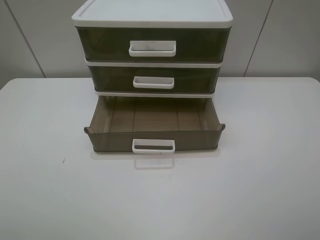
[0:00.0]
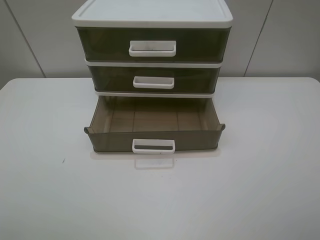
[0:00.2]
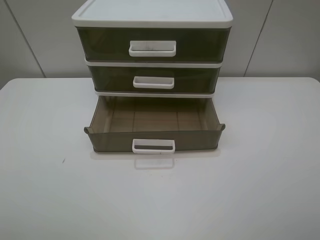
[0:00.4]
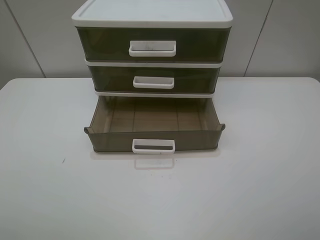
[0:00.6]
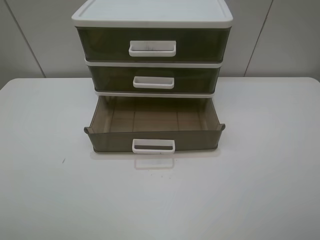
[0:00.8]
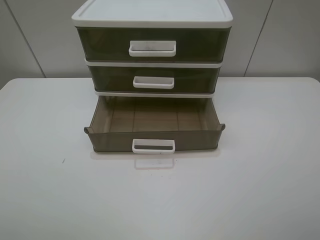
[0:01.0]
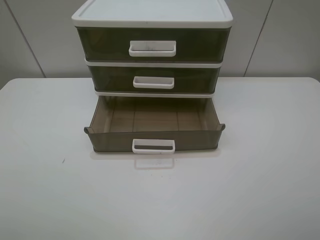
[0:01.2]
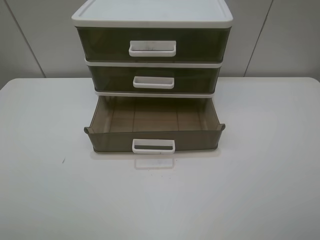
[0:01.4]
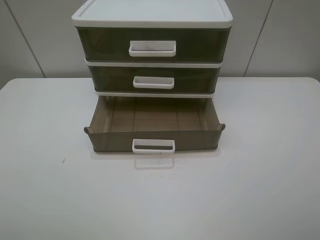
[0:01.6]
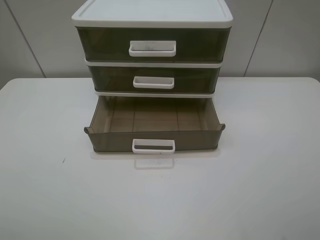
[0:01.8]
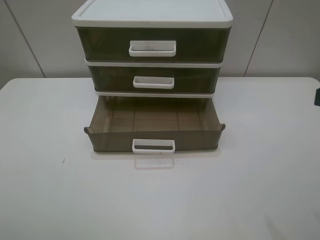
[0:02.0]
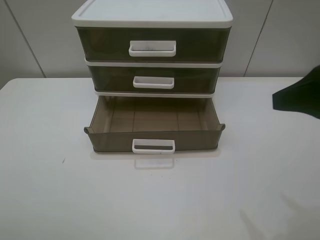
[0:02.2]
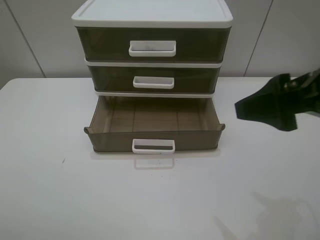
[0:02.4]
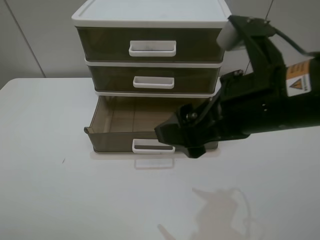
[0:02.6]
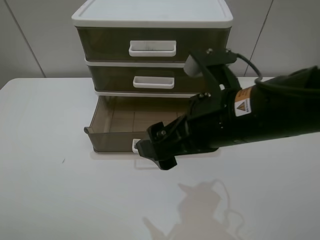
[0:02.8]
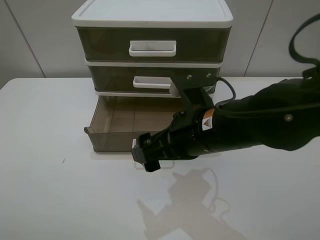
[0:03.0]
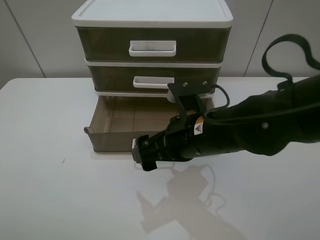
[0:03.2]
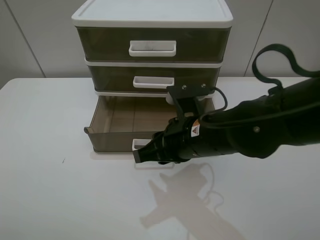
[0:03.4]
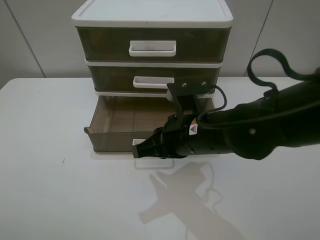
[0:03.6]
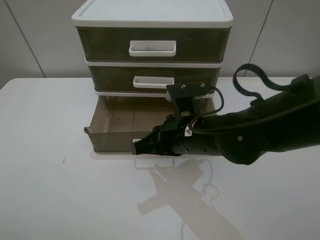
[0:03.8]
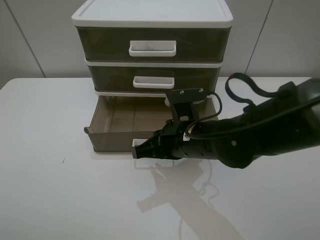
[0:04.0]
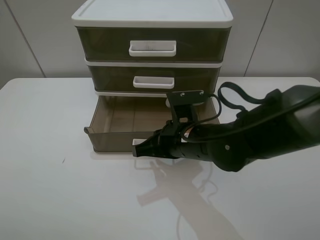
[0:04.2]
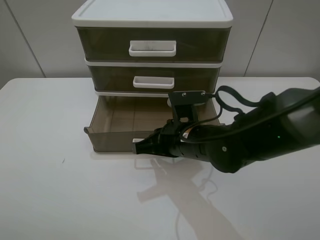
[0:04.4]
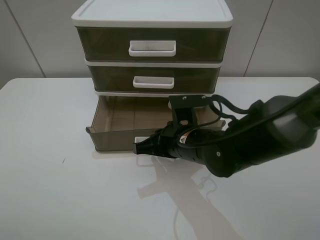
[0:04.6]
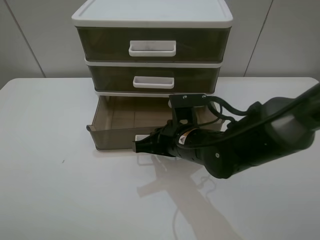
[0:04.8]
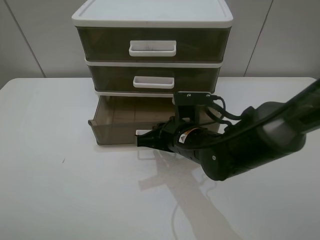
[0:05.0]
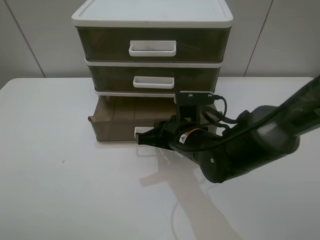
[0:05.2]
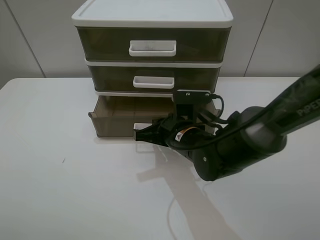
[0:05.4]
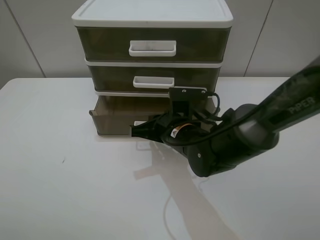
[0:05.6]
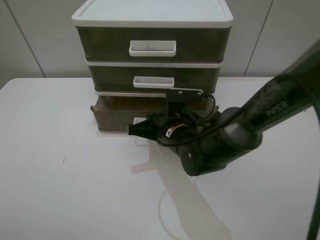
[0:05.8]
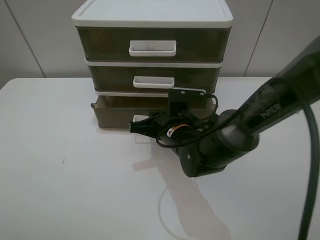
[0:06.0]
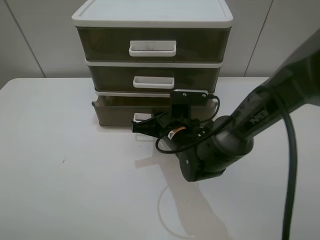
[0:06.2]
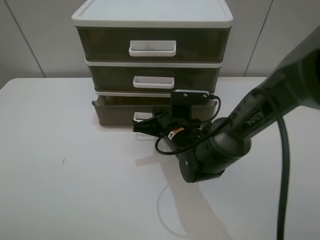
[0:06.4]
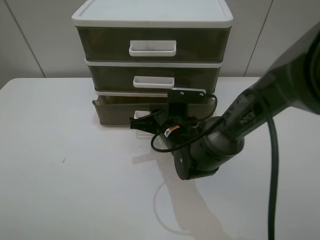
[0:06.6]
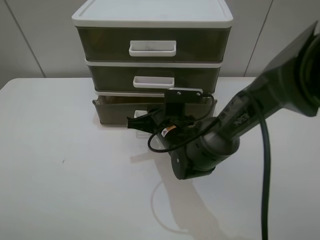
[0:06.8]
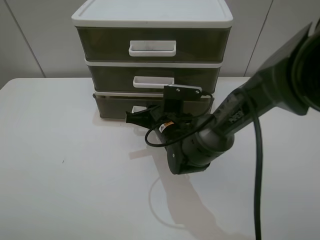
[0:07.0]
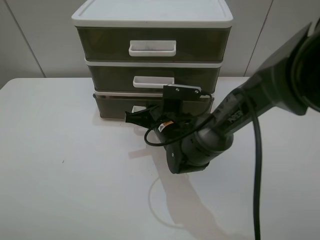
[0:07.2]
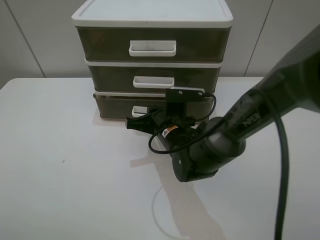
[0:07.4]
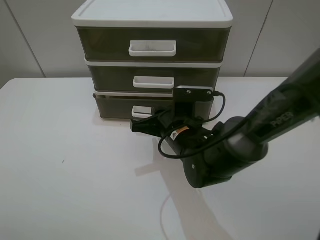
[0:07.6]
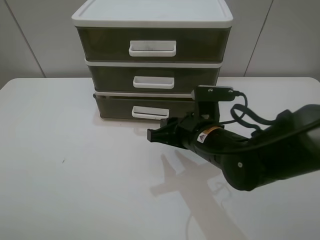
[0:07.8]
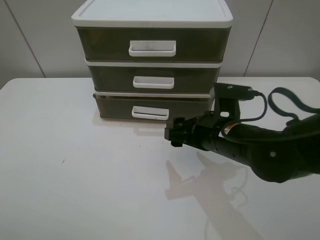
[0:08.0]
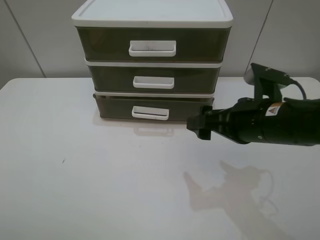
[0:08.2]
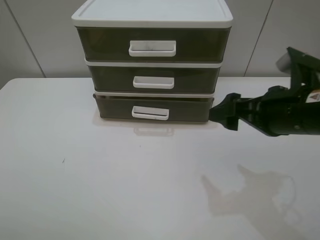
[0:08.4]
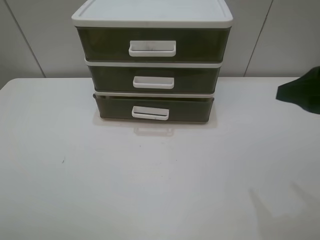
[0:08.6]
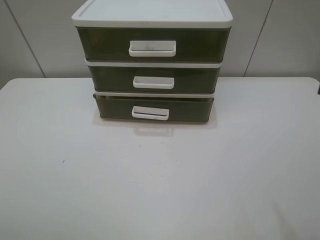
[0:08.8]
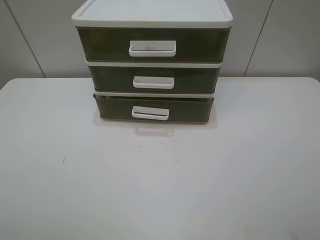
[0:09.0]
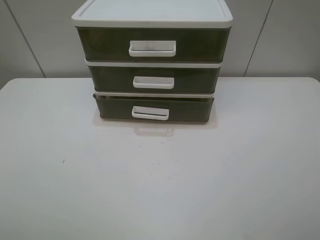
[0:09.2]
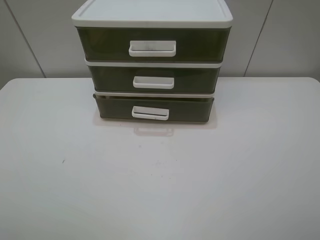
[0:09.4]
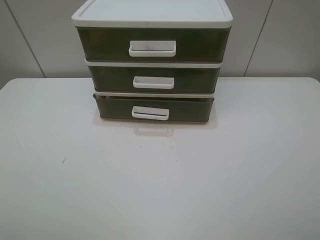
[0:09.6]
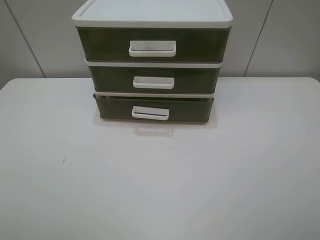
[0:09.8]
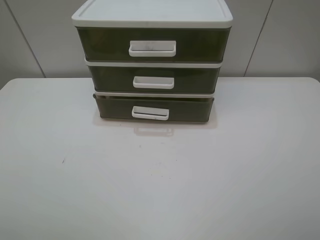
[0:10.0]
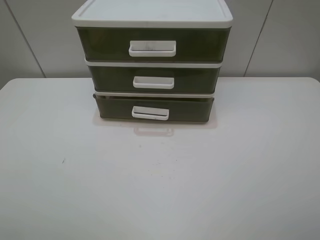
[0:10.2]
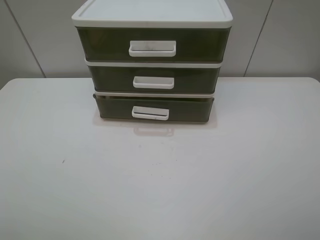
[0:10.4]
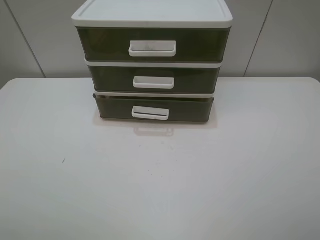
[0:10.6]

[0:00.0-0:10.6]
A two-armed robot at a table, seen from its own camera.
Task of the whole recording: close the bottom drawer.
Step, 0:00.0 to 0:04.4: Use the right gripper to contact the bottom layer of the storage cabinet.
Step, 0:04.6 to 0:07.2: Push the bottom drawer closed.
0:01.6 to 0:03.0: The right gripper is displaced to the left, forward and downward by about 30 cm.
0:03.0 to 0:04.6: The right gripper heads downward, covering roughly 10 cm, and closes up.
0:04.6 to 0:06.0: The right gripper moves roughly 5 cm.
0:06.0 to 0:07.6: There are only small adjustments of the grippers.
0:07.6 to 0:09.0: The right gripper moves to the right, upward and backward, approximately 40 cm, and opens up.

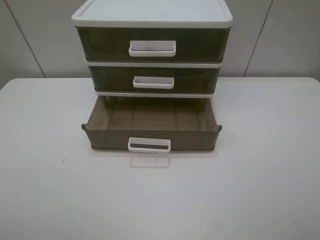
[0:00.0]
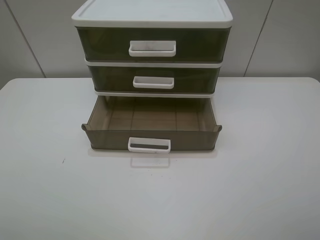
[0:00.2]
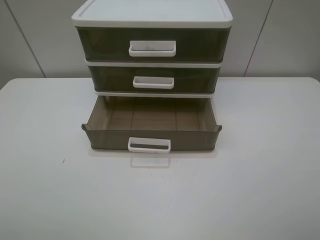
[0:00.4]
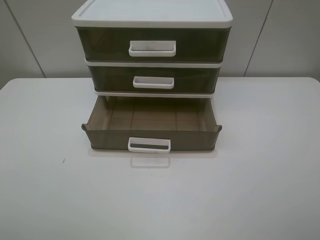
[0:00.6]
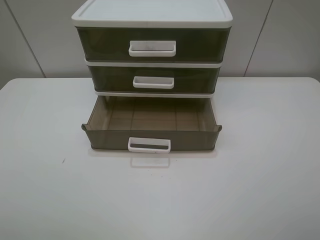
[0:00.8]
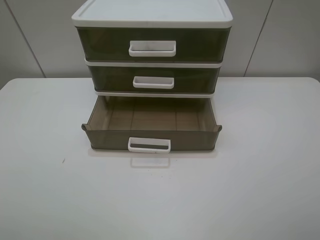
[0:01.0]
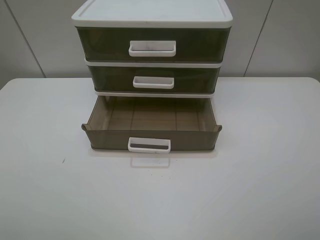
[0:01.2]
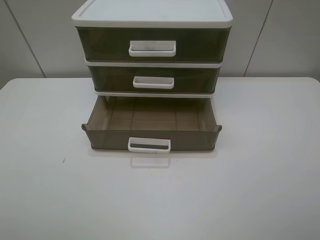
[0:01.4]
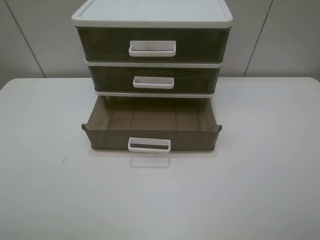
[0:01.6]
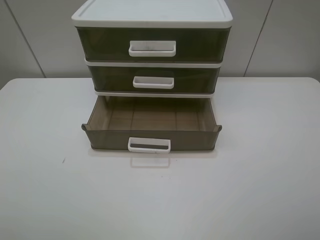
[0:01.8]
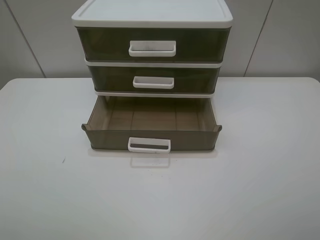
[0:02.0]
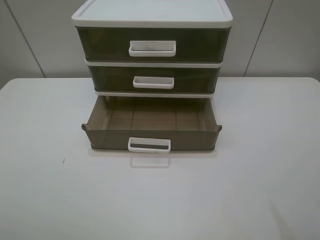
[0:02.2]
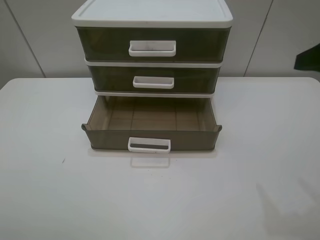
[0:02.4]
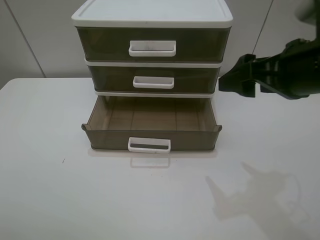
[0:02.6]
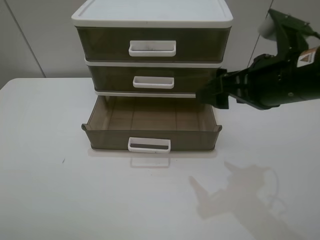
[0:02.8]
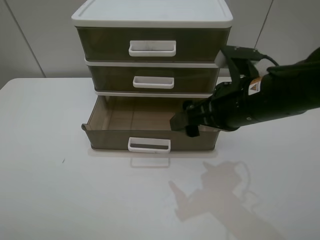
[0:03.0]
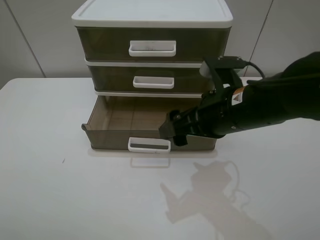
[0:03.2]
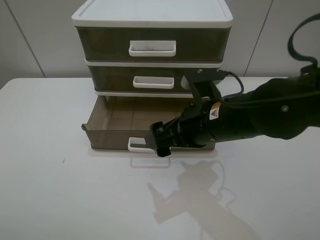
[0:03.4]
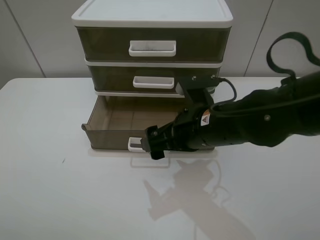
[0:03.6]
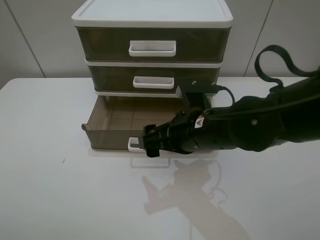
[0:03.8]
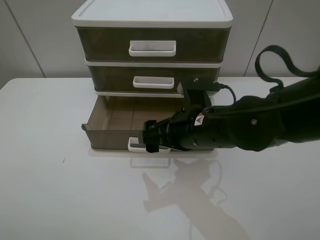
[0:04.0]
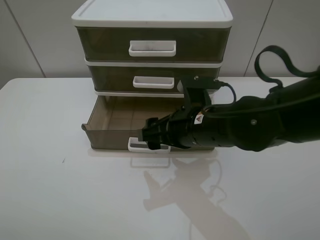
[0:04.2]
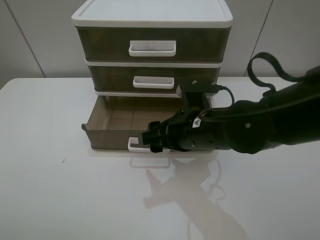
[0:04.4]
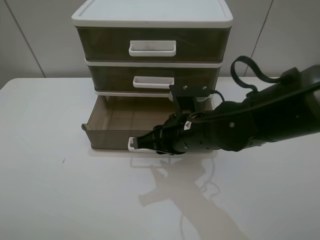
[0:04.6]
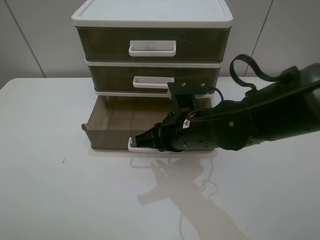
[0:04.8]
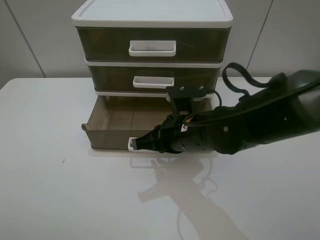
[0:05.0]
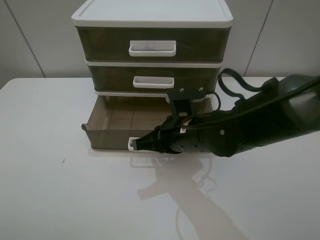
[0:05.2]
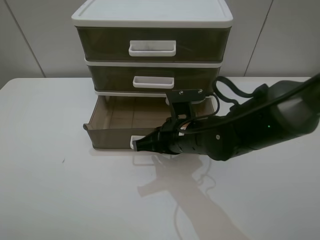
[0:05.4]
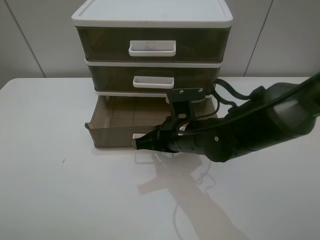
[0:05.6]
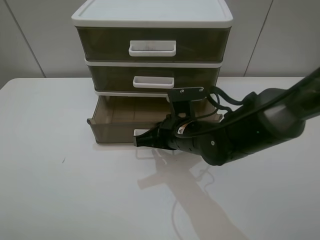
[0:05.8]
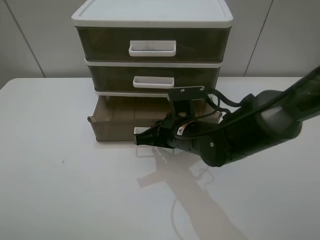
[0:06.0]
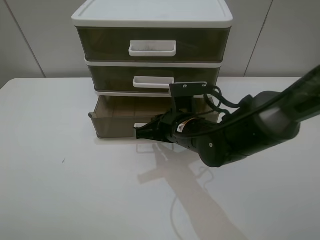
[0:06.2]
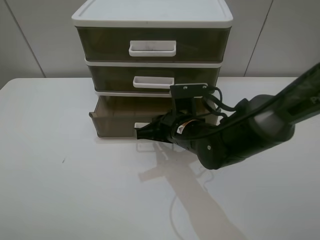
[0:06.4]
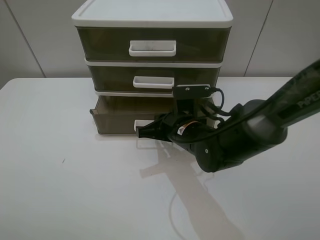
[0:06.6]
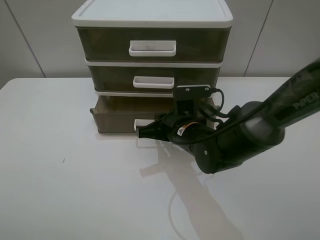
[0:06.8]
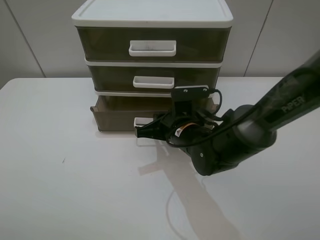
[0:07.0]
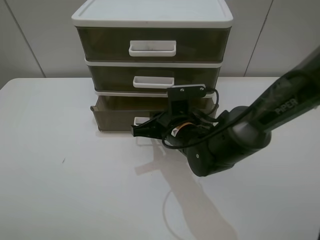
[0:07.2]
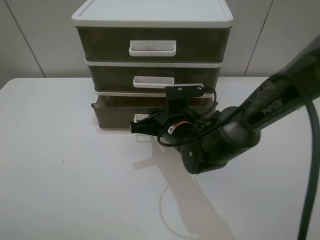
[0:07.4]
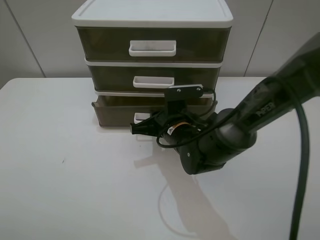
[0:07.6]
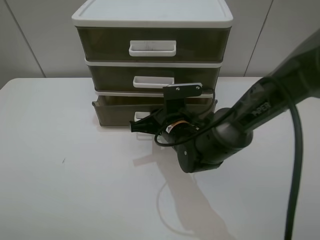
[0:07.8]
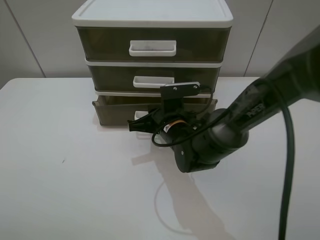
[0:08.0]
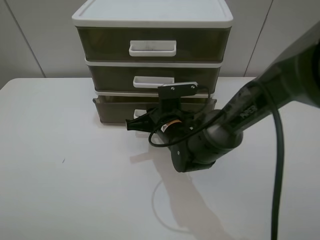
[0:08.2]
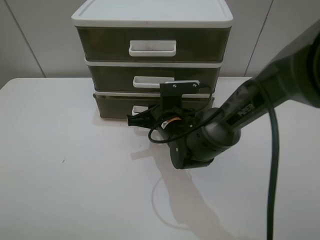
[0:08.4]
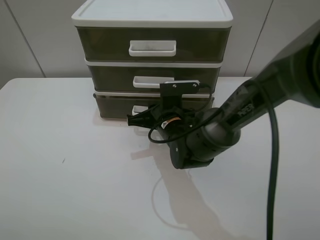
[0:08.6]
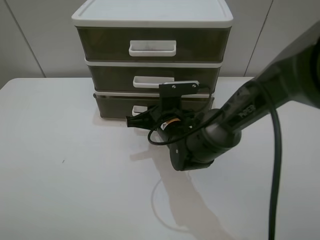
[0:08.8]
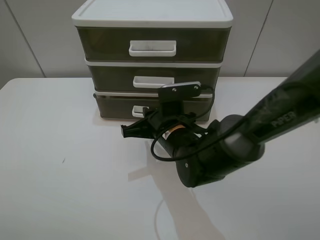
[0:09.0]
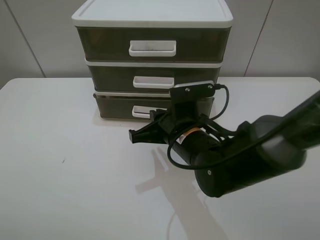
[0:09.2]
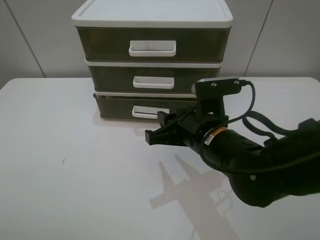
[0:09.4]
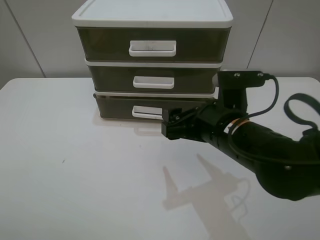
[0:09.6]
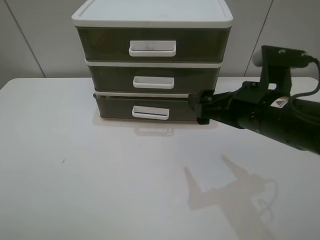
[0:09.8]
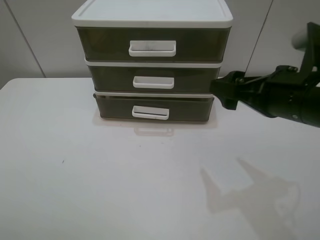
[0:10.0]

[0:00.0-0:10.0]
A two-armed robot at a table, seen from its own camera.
Task of the whole recording: close the bottom drawer.
Step, 0:00.0 to 0:05.0: Use the right gripper to contact the bottom layer of the storage cabinet.
Step, 0:05.2 to 0:08.4: Push the bottom drawer closed.
0:00.0 to 0:01.4: Neither gripper changes place.
0:01.4 to 0:02.8: The right gripper moves forward and to the left, about 25 cm.
0:02.8 to 0:04.2: The right gripper goes approximately 15 cm to the left and downward.
0:04.2 to 0:05.8: The right gripper is displaced downward by approximately 5 cm, and closes.
0:05.8 to 0:07.2: The grippers make only small movements.
0:07.2 to 0:08.6: The grippers move only a little.
0:08.6 to 0:10.0: The right gripper is displaced to the right, upward and backward by roughly 25 cm, and opens its fingers.

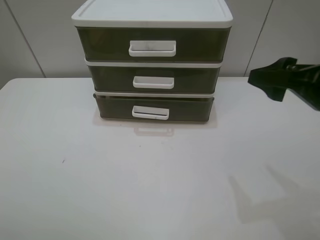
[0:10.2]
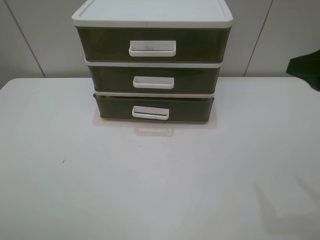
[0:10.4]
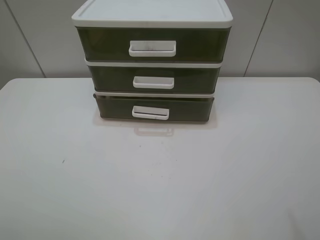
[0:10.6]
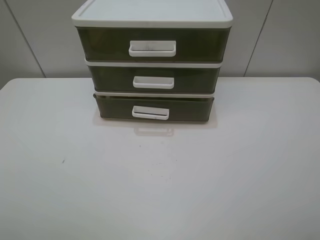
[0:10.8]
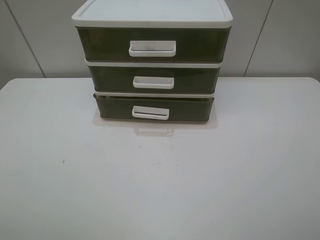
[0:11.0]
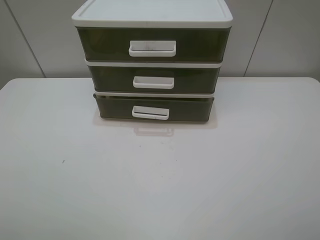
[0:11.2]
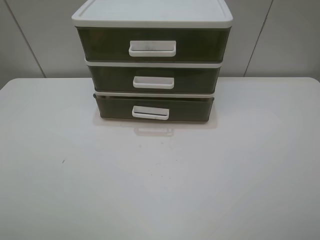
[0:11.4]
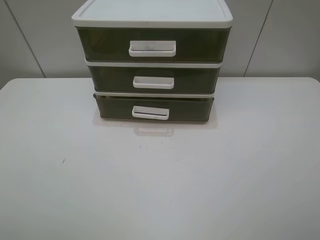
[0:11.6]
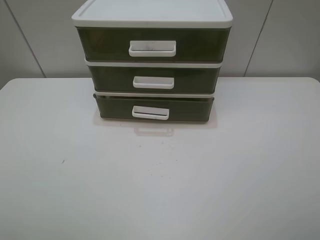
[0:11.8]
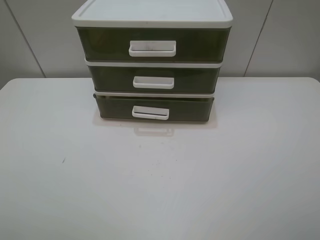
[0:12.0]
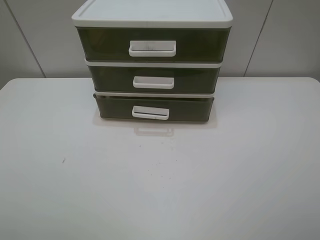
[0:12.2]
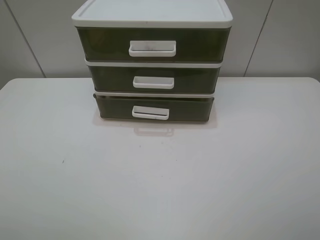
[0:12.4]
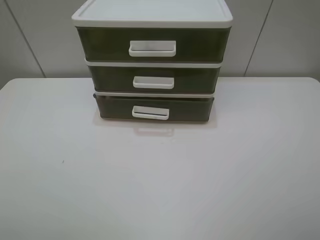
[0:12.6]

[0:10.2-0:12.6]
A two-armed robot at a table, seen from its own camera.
Task of the whole recording: close the bottom drawer.
0:10.2 to 0:11.4: The right gripper travels backward by roughly 15 cm.
